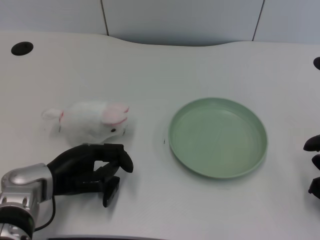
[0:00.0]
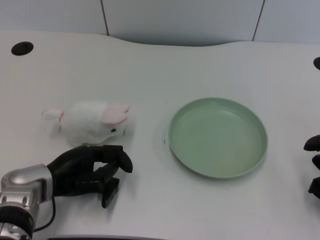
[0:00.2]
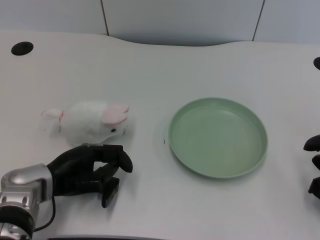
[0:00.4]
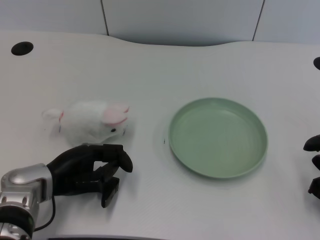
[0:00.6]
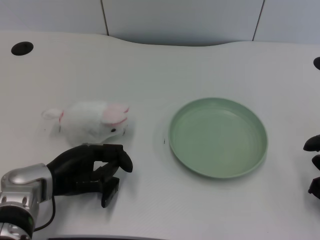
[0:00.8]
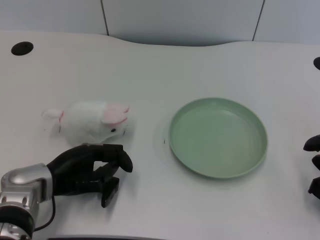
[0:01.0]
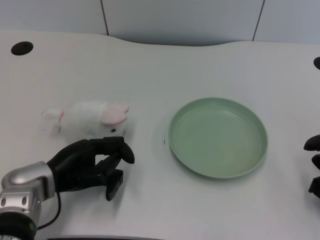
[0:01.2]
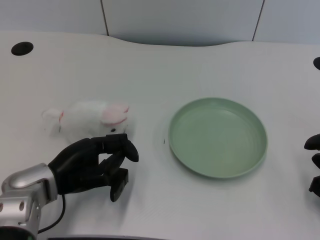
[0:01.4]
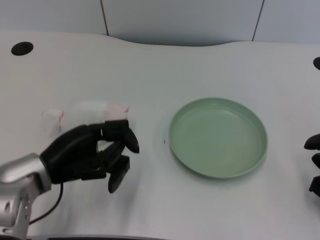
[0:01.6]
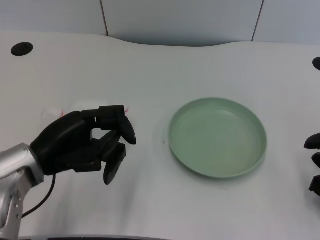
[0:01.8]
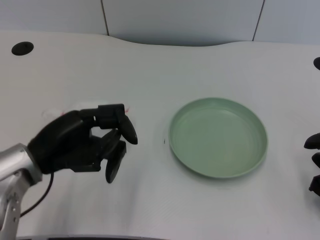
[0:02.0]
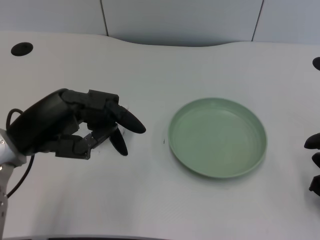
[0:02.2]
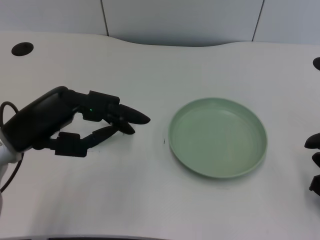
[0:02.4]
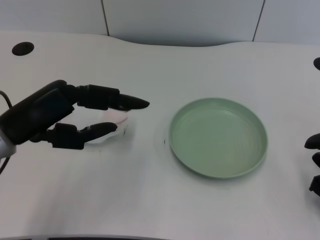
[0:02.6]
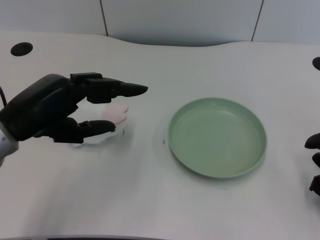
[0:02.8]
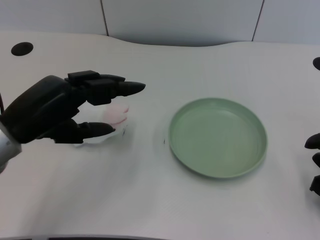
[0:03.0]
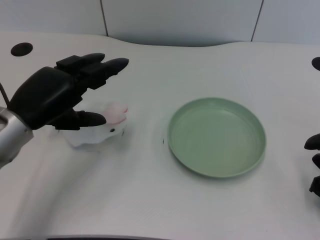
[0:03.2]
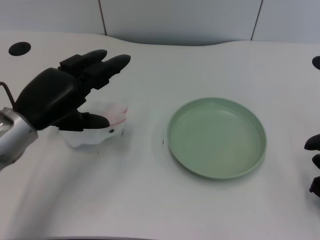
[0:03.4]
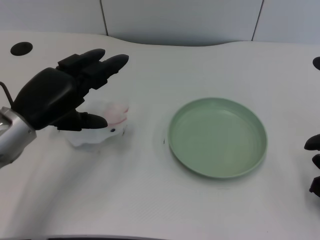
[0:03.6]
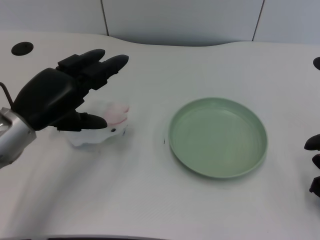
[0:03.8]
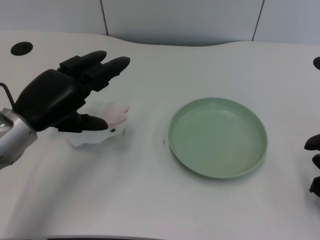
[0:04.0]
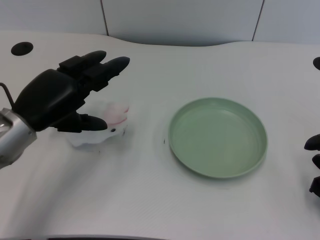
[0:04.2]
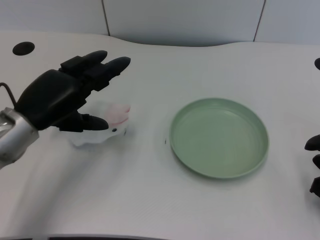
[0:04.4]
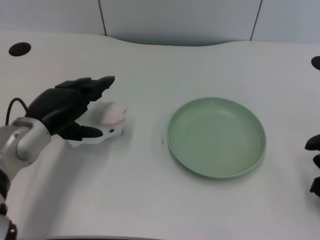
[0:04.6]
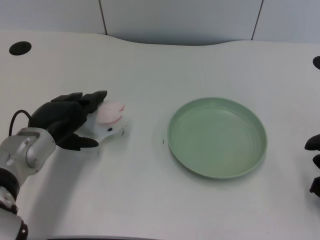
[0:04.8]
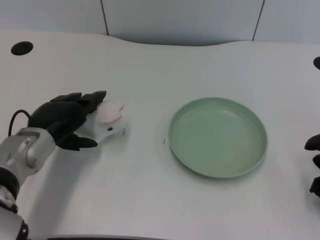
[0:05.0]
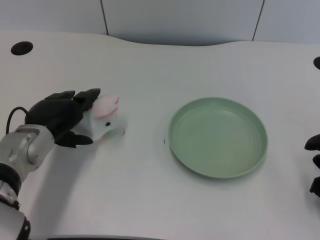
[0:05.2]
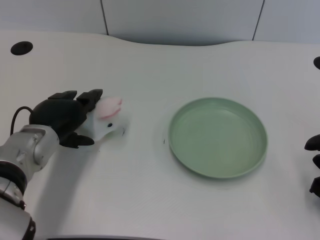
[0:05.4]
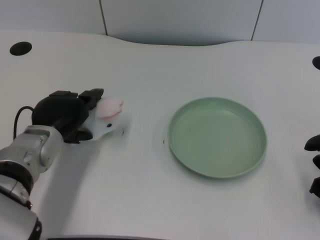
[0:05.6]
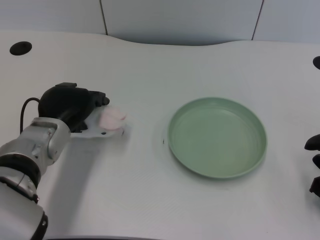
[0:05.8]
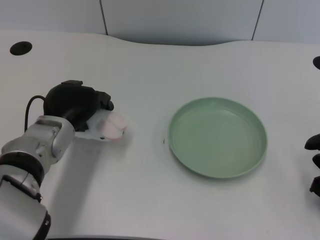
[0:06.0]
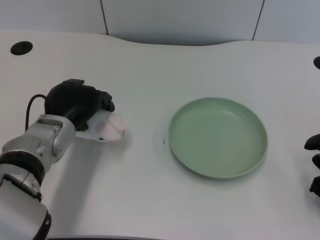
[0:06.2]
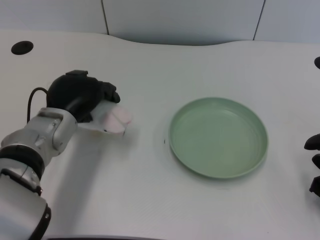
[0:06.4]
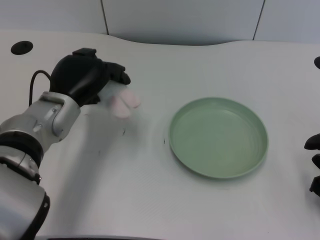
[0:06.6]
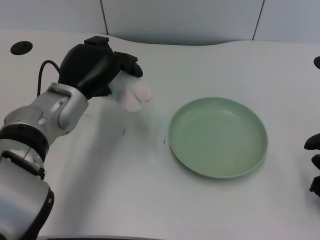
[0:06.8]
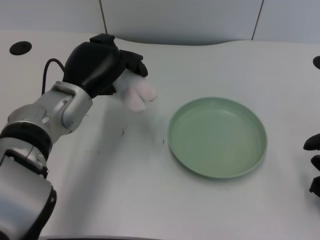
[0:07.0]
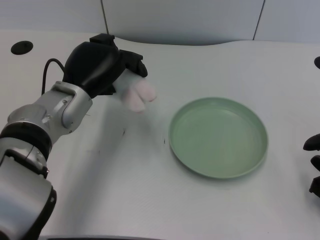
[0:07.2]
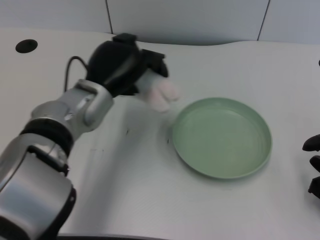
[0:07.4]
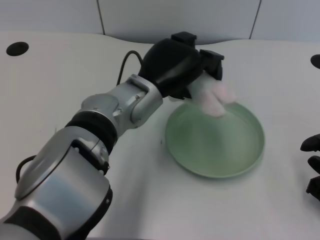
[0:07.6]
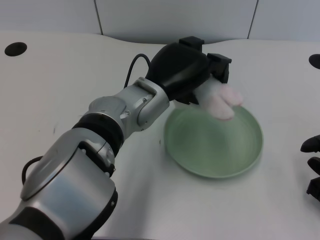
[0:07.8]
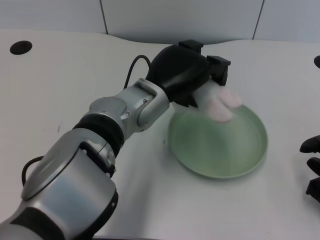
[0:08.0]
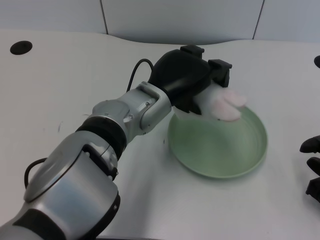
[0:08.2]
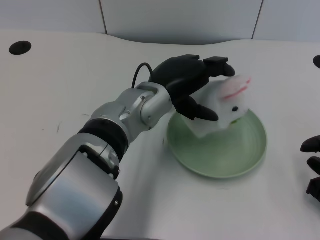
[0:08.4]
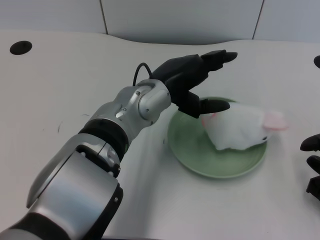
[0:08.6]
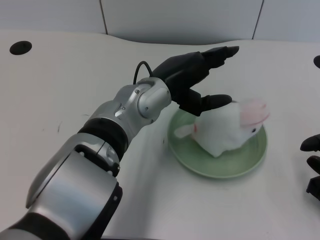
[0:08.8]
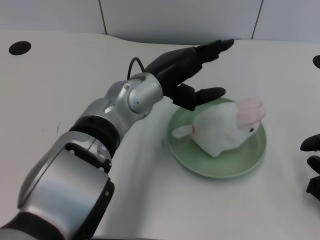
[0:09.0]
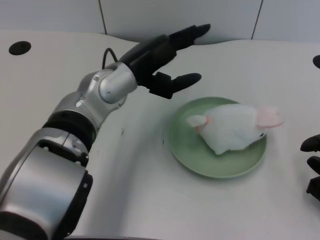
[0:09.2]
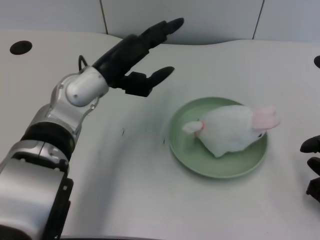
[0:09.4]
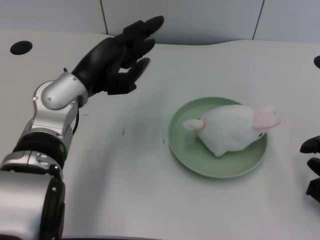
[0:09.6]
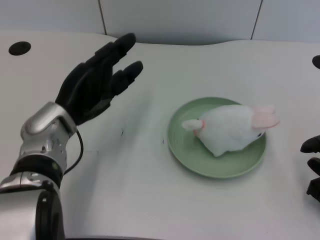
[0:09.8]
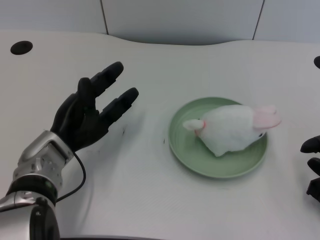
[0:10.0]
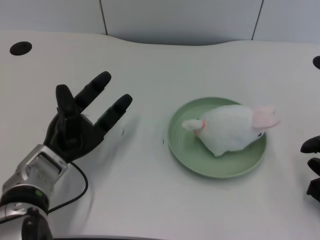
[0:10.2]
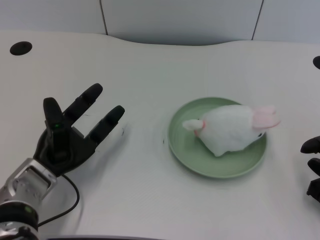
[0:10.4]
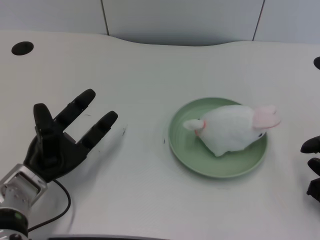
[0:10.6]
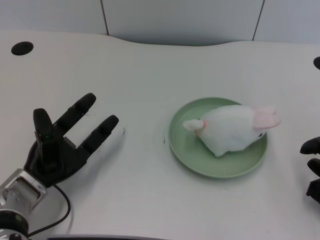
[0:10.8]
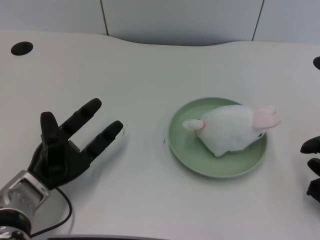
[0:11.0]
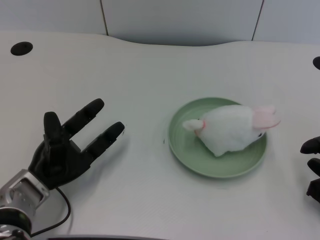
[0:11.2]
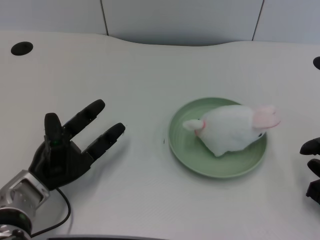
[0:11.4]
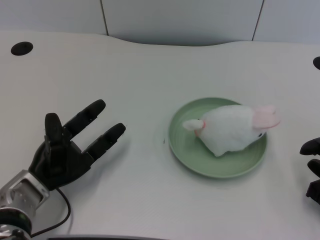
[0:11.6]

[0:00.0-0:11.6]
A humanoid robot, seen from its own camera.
Task of the whole recording: pick up the rabbit doll from the table and place it on the plate.
Step, 0:01.0 to 0:06.2: Grasp the rabbit doll with the left gripper.
Step, 0:06.4 to 0:08.6: Place the rabbit doll into the plate with the left gripper.
0:01.4 to 0:02.8: The left hand travels upward by about 10 cm.
0:02.8 to 0:04.4: The left hand goes roughly 5 cm forward.
0:04.4 to 0:05.8: The left hand ends up some 5 cm from where it was.
0:05.8 to 0:07.2: The left hand shifts by some 5 cm.
0:07.2 to 0:08.8: The left hand moves to the right, roughly 10 cm.
0:08.8 to 0:10.2: The left hand is displaced to the left and downward by about 20 cm.
0:10.2 to 0:11.6: The hands make only small movements.

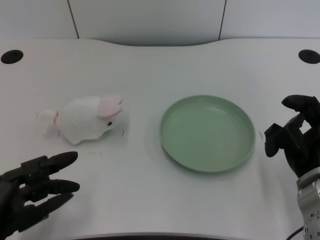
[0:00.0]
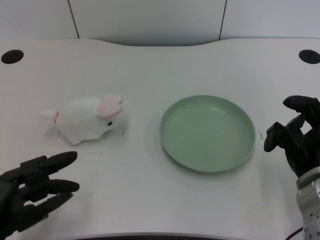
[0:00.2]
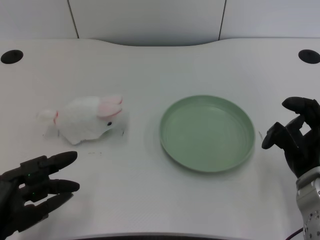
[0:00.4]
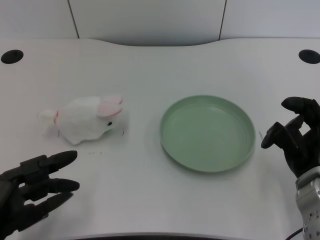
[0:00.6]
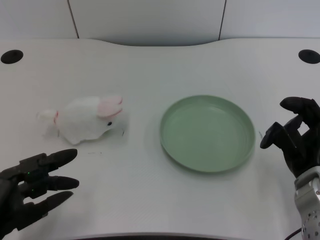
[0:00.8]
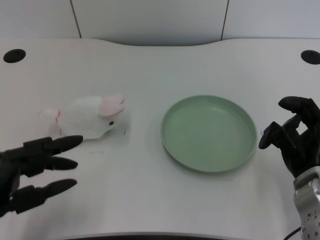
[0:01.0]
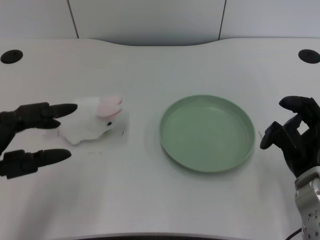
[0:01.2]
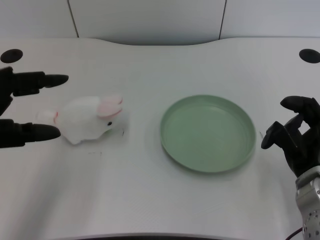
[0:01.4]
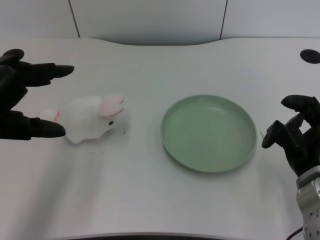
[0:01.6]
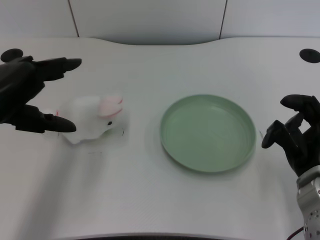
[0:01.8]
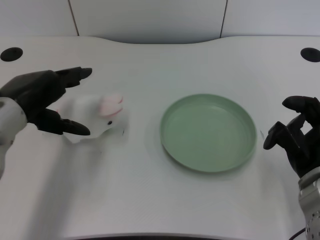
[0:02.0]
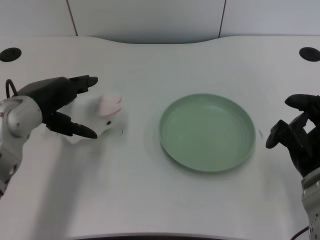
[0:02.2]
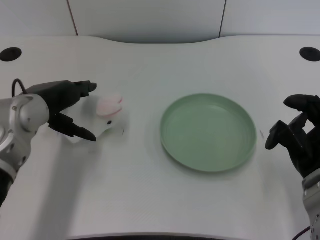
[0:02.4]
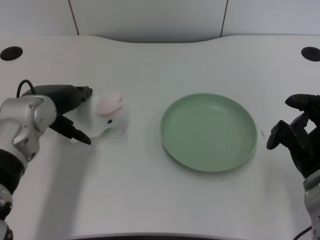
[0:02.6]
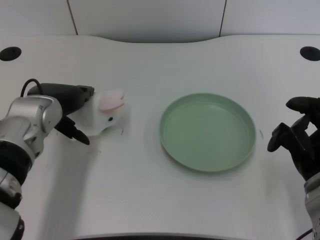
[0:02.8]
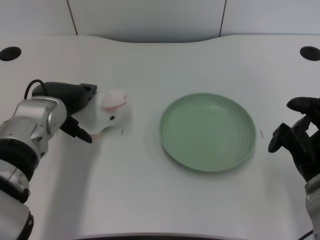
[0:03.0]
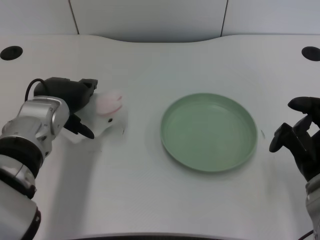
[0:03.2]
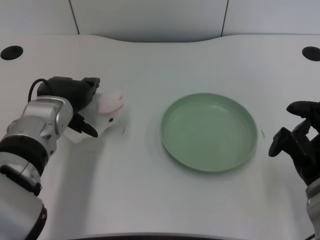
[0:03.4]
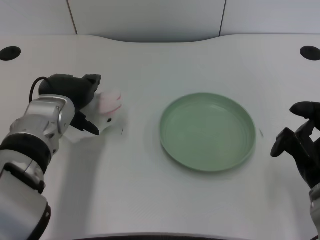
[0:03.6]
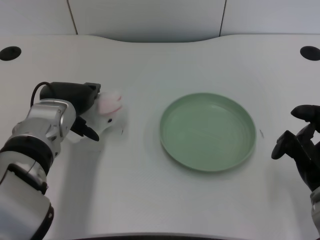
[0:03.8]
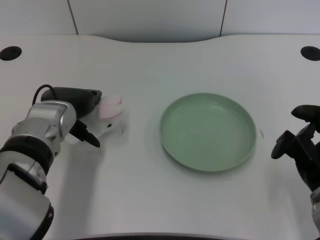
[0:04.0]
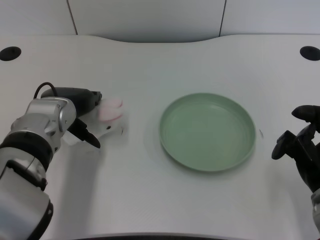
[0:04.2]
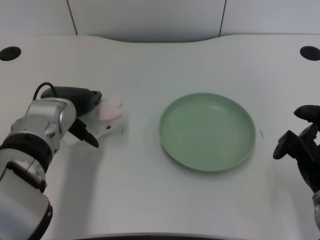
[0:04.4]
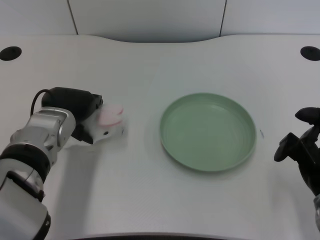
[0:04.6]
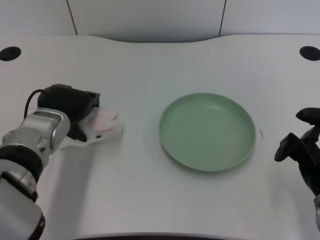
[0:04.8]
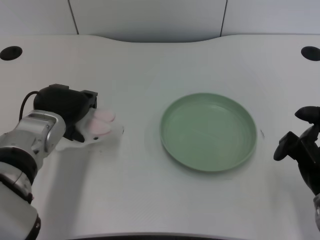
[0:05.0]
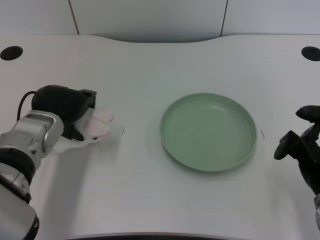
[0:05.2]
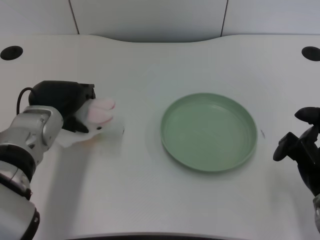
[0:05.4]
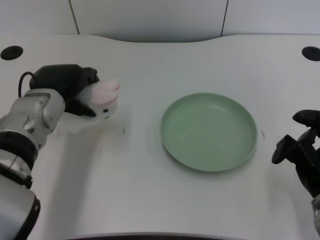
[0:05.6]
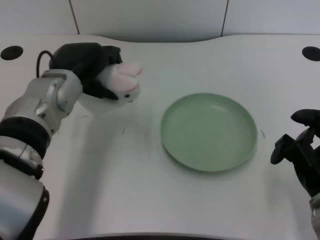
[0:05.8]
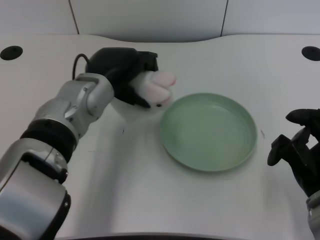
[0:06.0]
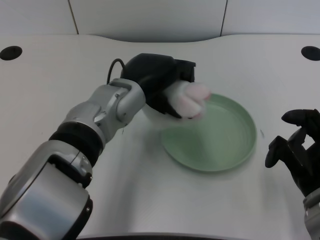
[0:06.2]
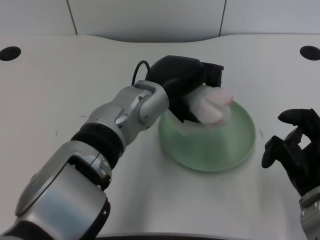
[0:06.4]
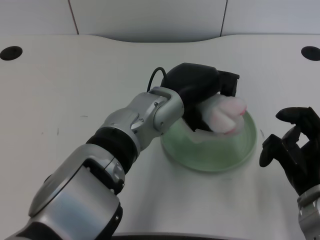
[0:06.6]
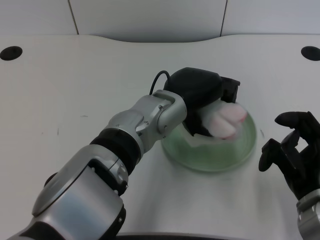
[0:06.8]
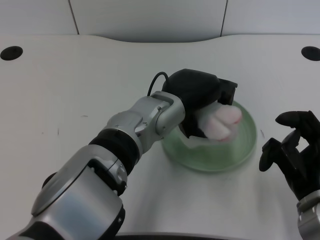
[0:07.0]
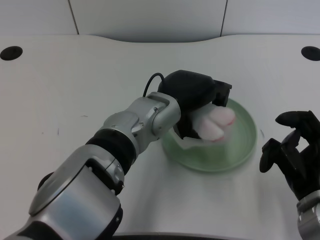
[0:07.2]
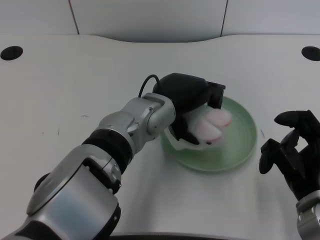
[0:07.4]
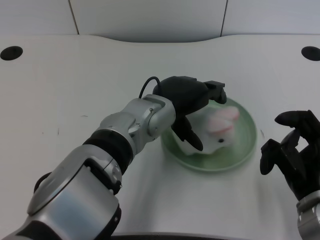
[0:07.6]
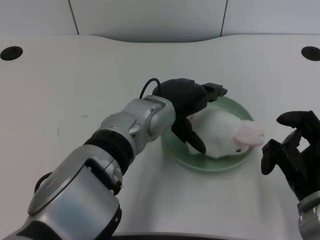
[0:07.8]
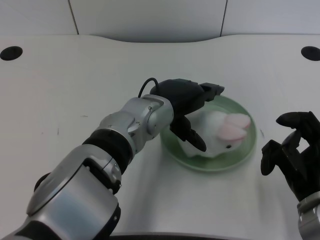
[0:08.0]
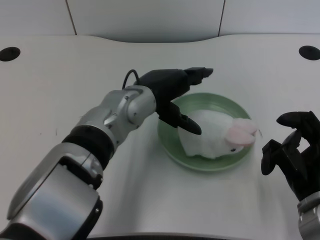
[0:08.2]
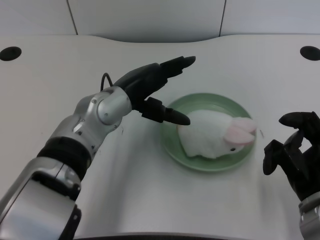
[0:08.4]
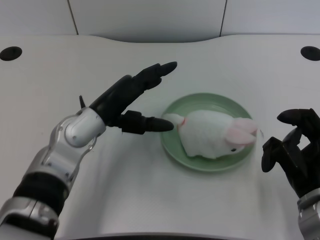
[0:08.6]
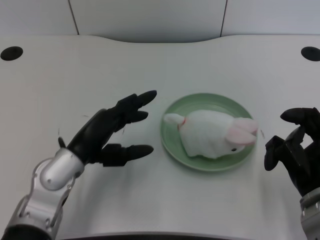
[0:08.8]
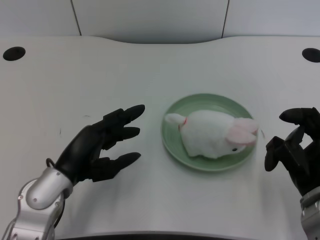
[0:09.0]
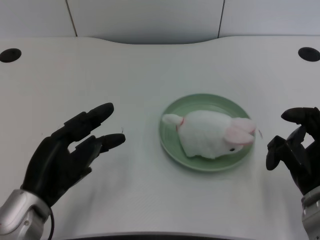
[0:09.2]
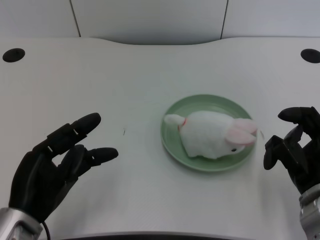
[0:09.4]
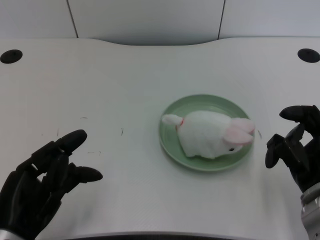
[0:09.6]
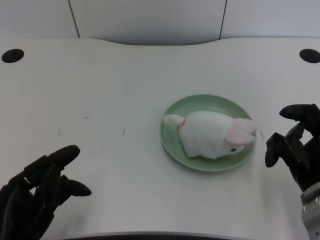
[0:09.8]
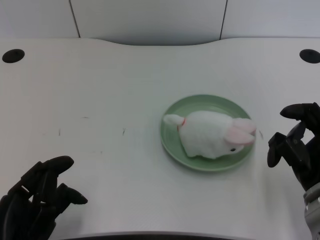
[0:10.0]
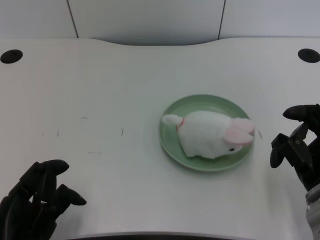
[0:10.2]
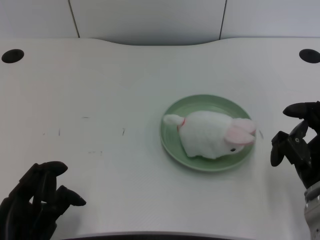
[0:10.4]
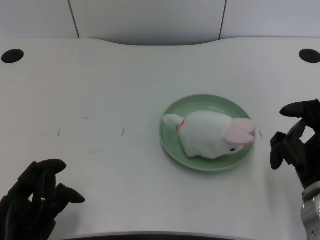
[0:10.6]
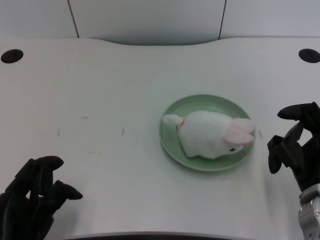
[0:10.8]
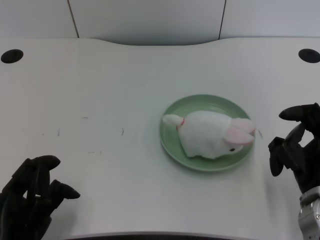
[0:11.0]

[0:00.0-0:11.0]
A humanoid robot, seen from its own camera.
Task of the whole recording: pick up the rabbit doll from the table and place it on the plate.
Step, 0:01.0 to 0:05.2: Grasp the rabbit doll with the left gripper.
Step, 0:05.4 to 0:07.6: Place the rabbit doll into the plate with the left gripper.
0:01.6 to 0:03.2: The left hand moves forward, to the right and downward, roughly 15 cm.
0:03.2 to 0:04.8: There are only small adjustments of the hands.
0:04.8 to 0:06.2: The left hand travels to the right by approximately 10 cm.
0:07.8 to 0:09.4: The left hand travels to the left and backward by roughly 25 cm.
0:09.4 to 0:11.0: The left hand ends up some 5 cm from where it was.
